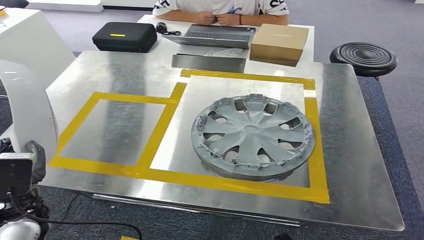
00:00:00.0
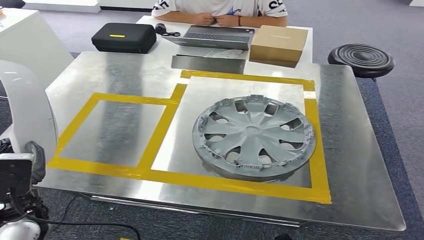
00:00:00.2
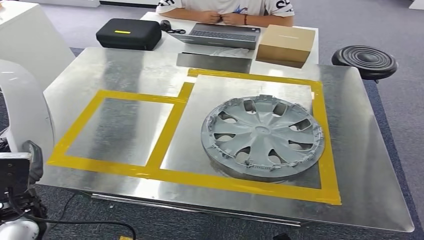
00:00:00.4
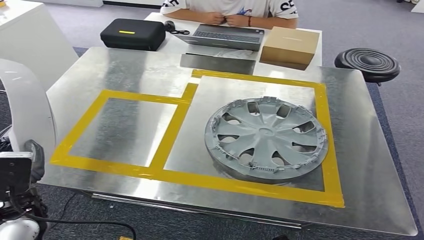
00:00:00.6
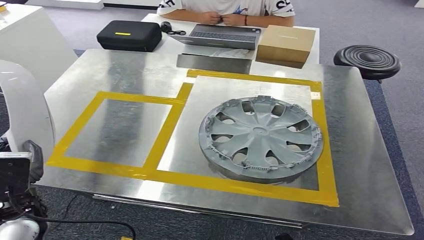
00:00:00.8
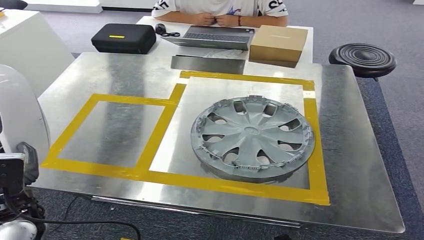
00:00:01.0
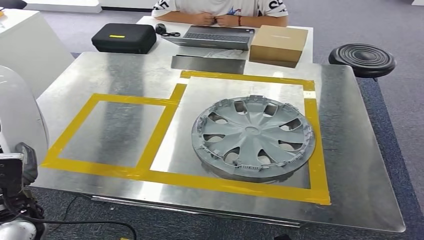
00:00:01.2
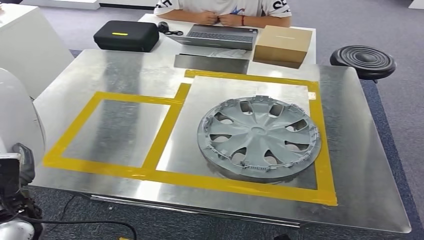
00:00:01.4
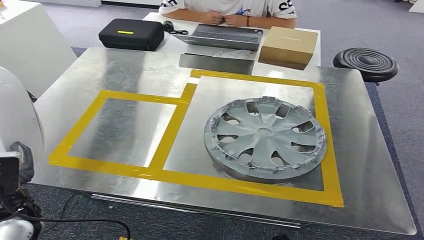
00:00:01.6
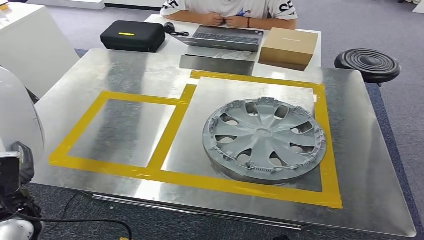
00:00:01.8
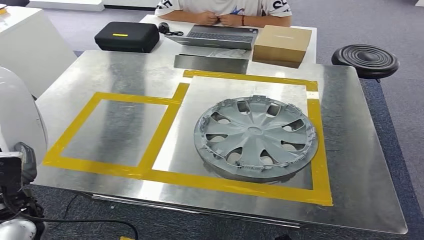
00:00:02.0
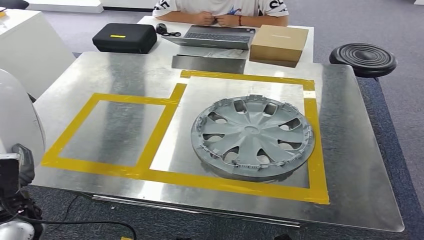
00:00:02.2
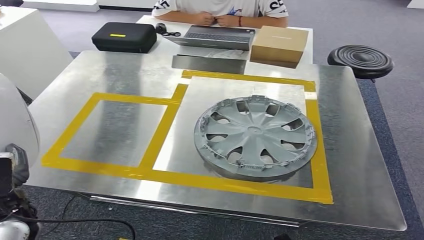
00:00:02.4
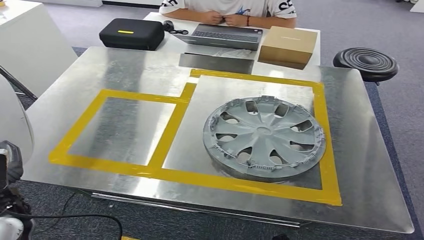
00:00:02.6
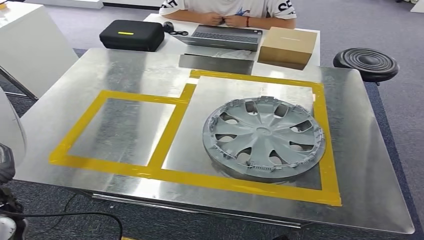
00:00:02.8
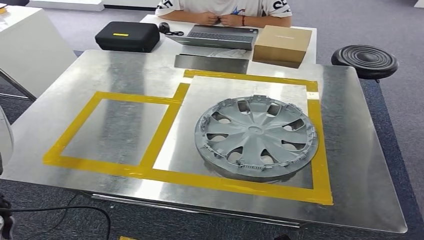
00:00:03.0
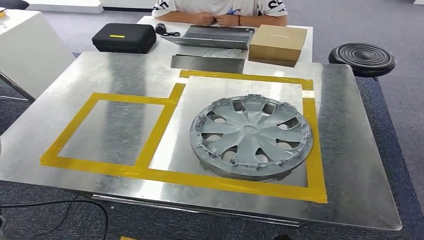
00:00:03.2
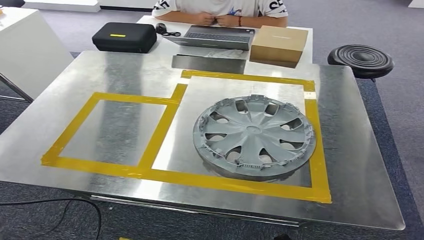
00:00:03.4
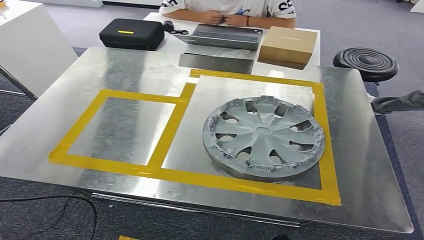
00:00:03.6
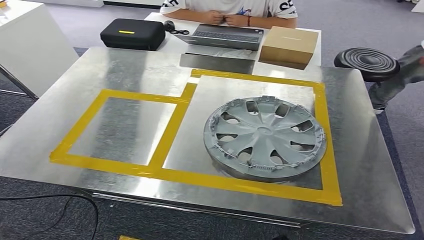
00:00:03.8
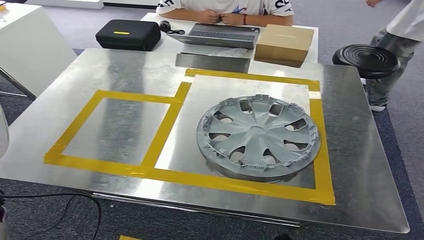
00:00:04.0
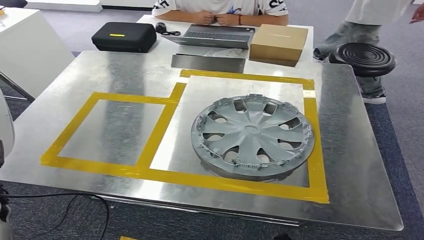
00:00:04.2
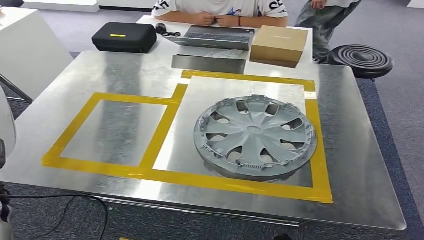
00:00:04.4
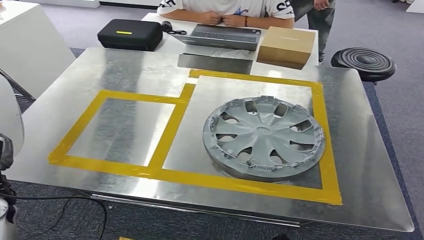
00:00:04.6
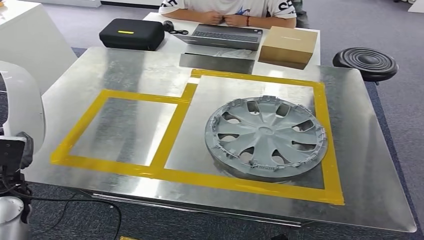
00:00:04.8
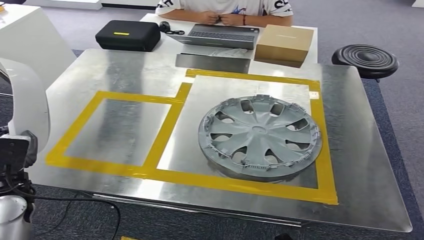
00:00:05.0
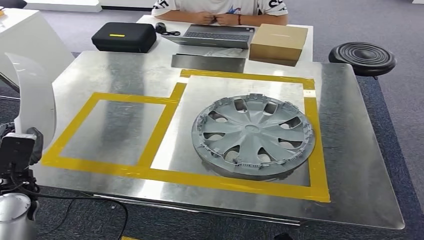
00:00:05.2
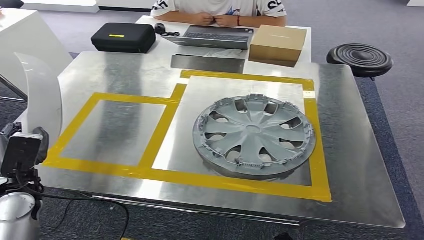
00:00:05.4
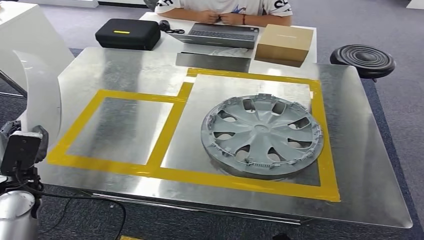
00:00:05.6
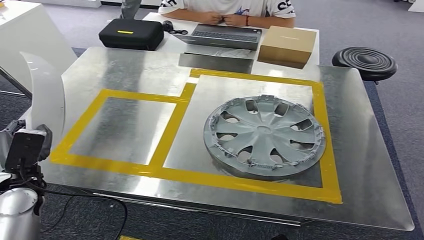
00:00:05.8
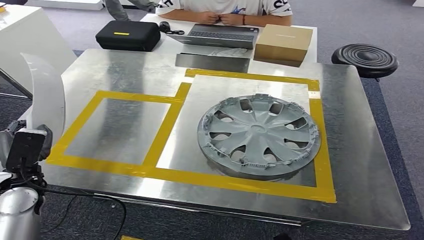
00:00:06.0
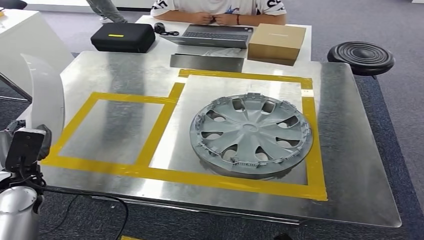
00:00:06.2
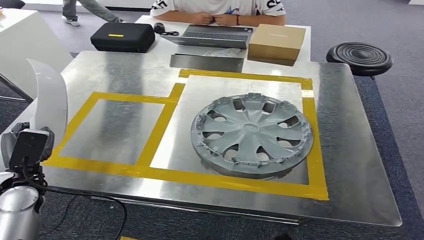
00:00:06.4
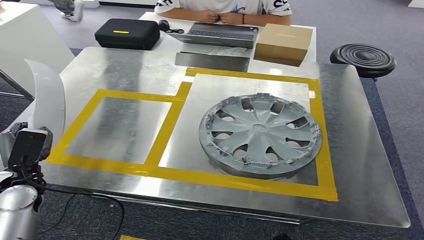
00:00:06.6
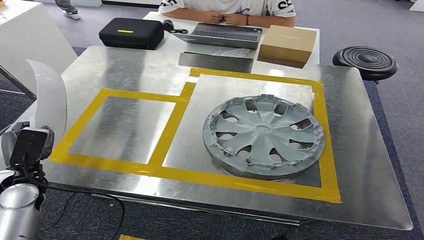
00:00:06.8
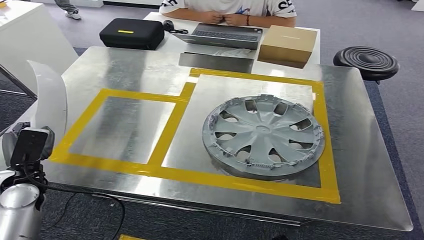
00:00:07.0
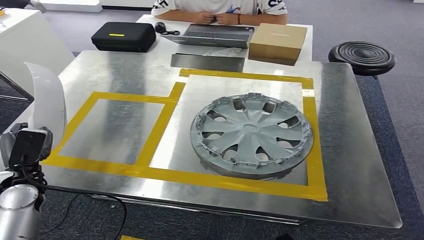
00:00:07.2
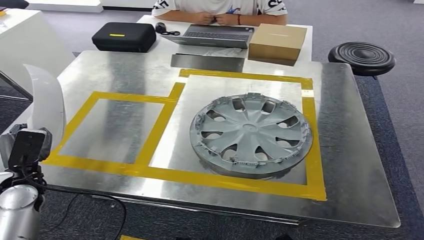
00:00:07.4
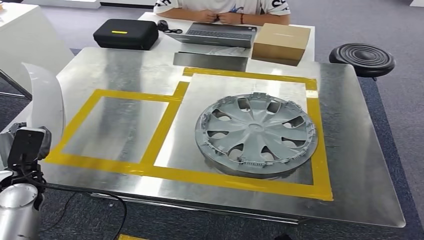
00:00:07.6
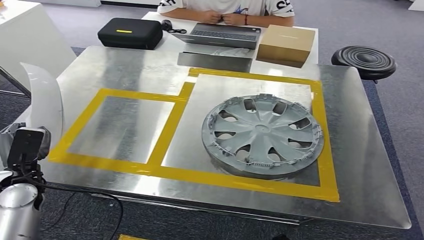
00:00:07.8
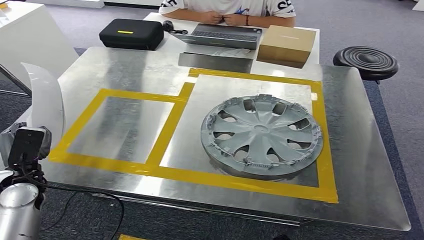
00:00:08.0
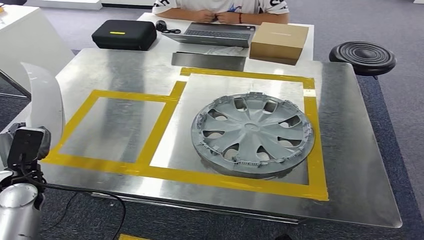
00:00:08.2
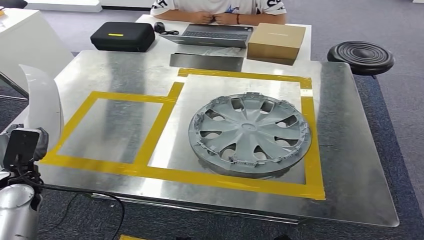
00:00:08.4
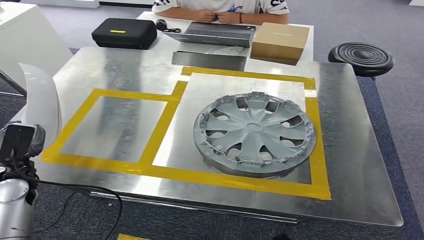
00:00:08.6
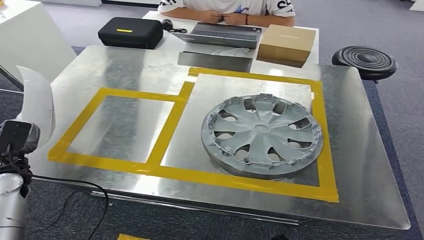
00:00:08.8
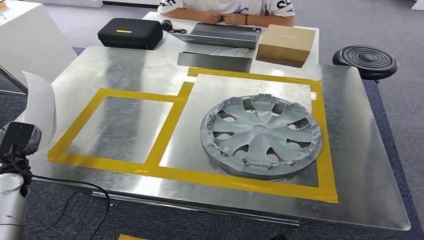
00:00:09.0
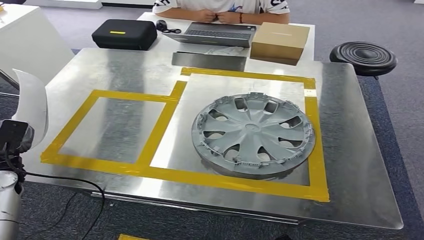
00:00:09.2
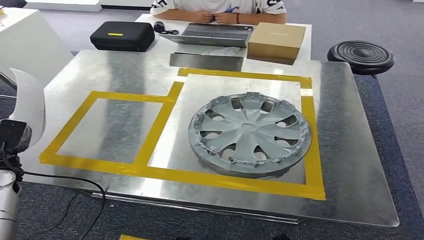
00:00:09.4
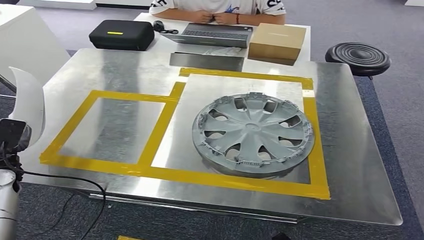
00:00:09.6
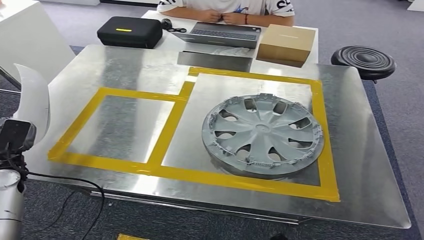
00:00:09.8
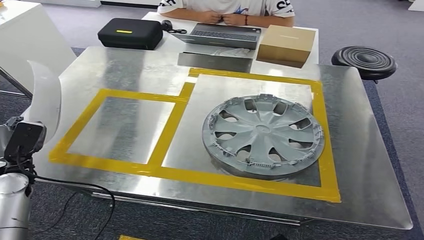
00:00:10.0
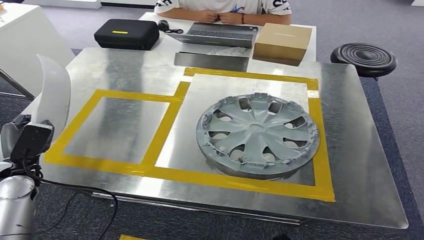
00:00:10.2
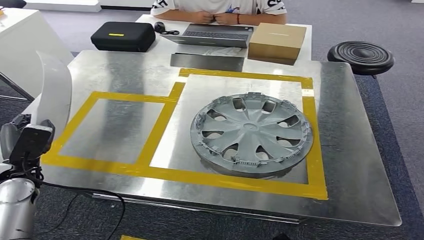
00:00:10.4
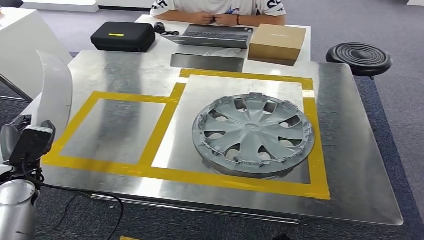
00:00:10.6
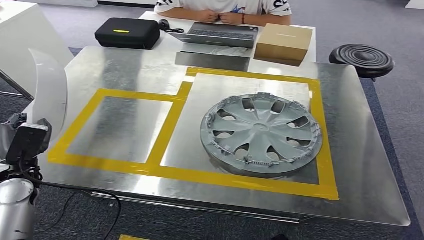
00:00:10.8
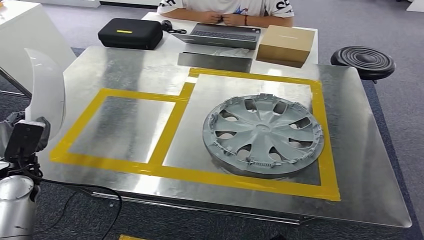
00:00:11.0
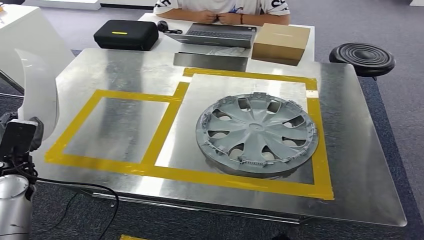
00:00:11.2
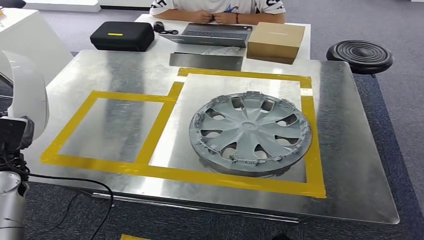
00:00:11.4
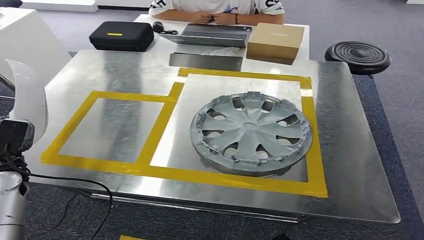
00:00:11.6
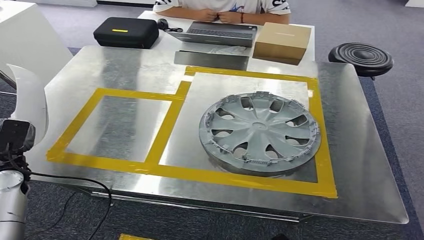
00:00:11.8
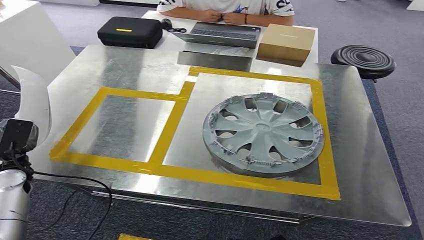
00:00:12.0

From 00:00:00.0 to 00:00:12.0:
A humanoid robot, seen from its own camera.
From 00:00:03.0 to 00:00:04.4: The hands make only small movements.
From 00:00:06.0 to 00:00:07.6: The hands stay close to where they were, moving slightly.
From 00:00:07.6 to 00:00:09.0: The left hand travels to the left by roughly 5 cm.

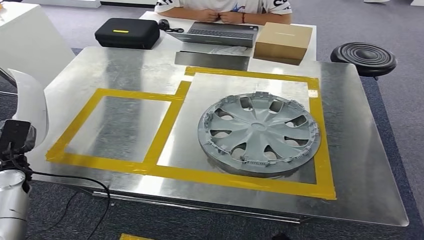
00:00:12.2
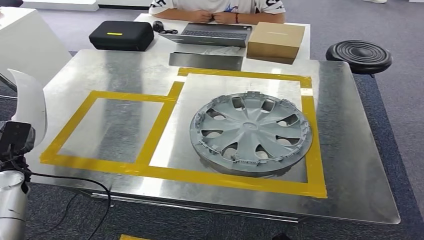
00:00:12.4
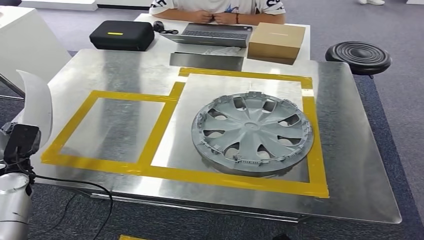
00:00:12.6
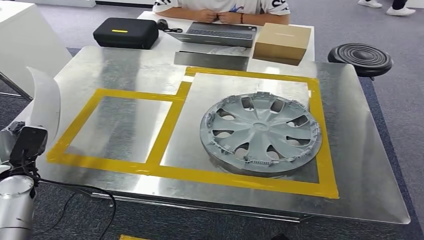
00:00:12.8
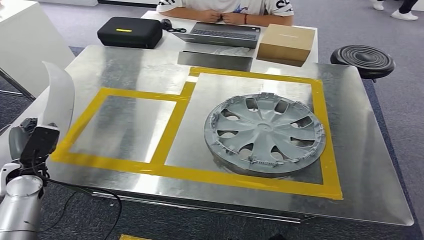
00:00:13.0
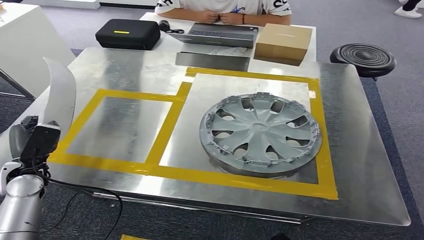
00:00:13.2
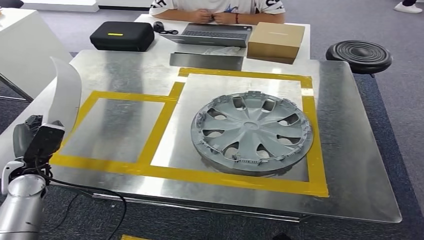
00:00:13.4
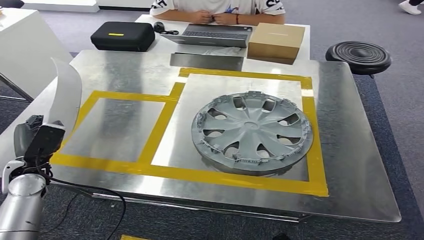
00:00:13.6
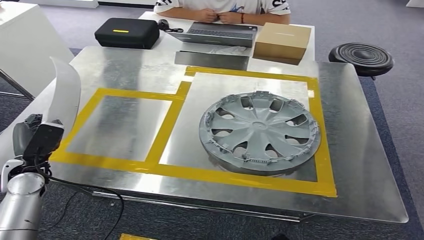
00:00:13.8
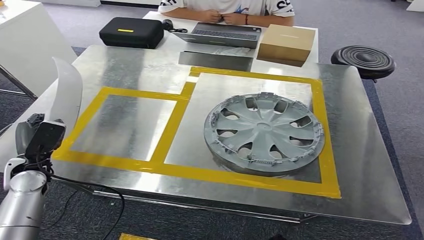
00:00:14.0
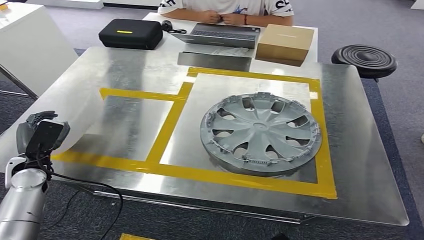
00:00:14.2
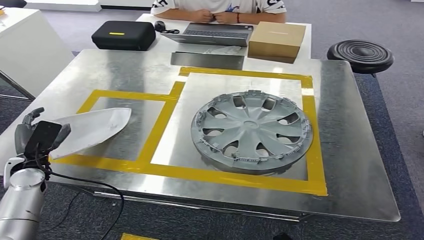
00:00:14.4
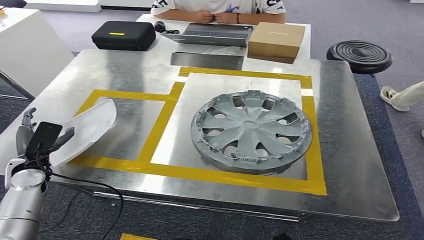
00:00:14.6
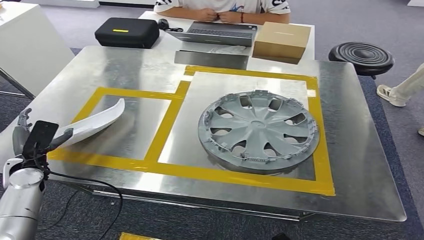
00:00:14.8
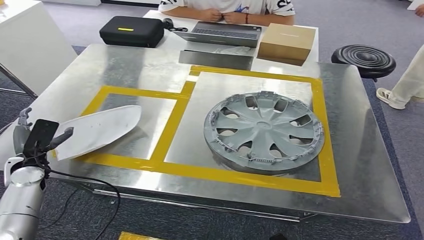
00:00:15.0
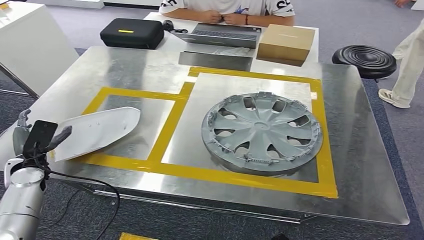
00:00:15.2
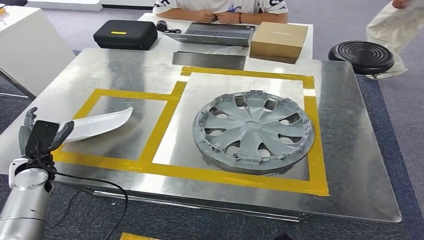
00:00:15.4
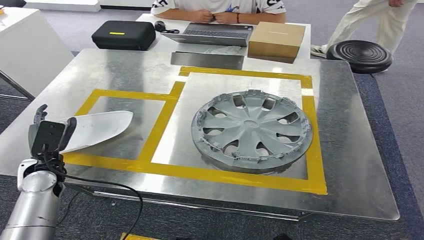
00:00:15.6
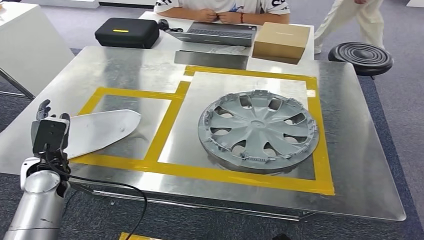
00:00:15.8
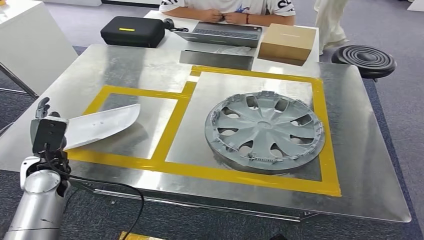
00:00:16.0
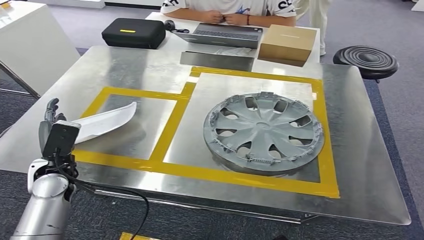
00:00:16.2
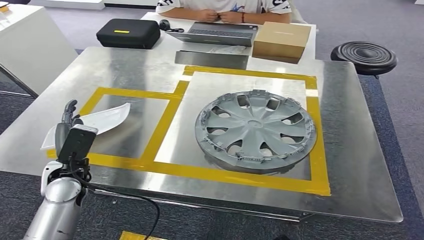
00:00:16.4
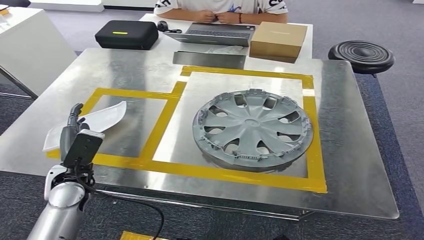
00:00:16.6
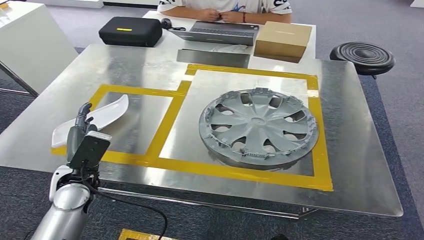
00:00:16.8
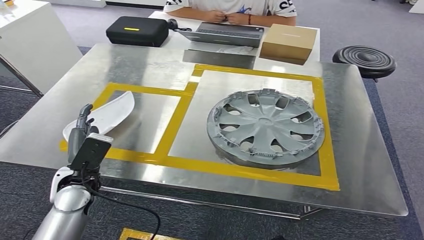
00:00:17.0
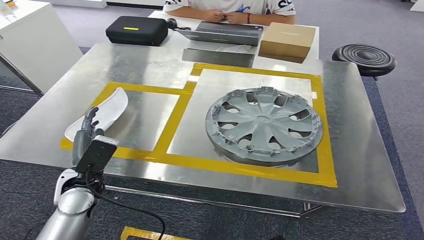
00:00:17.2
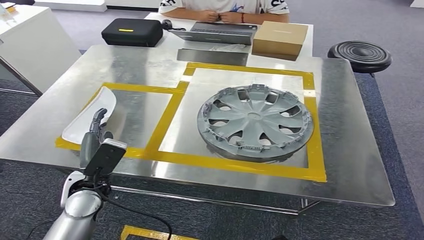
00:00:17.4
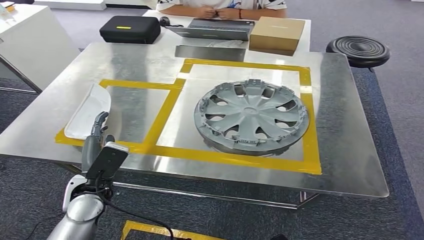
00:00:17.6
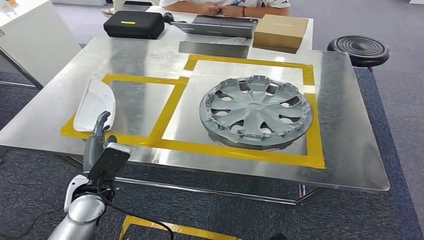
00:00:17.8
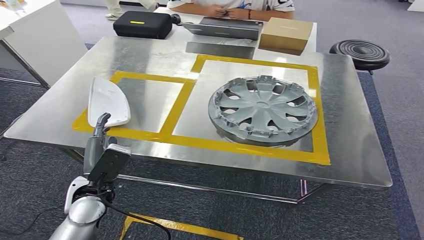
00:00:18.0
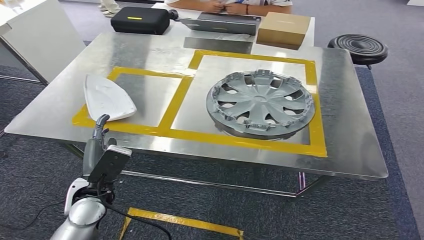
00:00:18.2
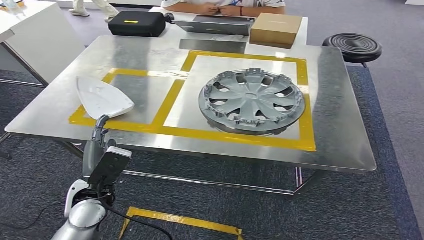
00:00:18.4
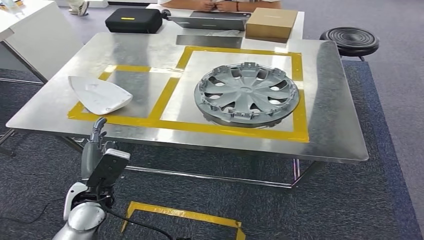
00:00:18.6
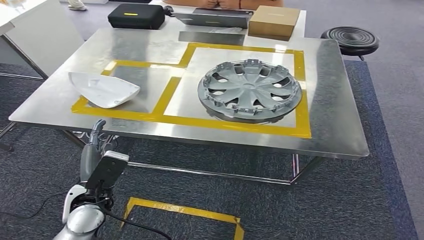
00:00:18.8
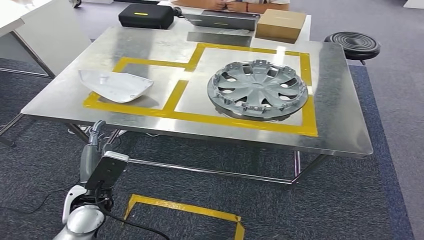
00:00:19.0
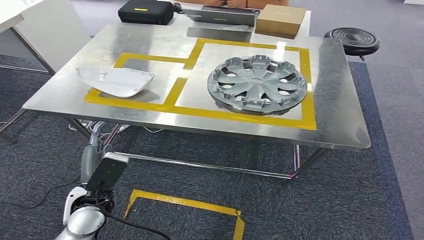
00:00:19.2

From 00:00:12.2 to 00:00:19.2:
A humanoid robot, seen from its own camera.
Step, from 00:00:12.2 to 00:00:15.8: Insert the small parts into the corresponding slots on the workbench.
